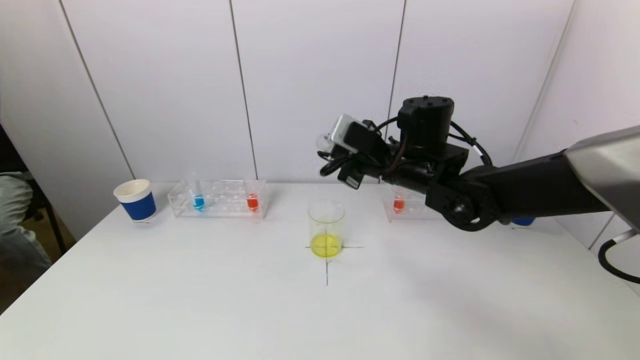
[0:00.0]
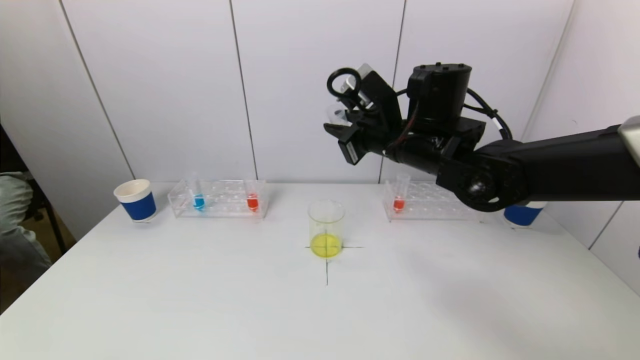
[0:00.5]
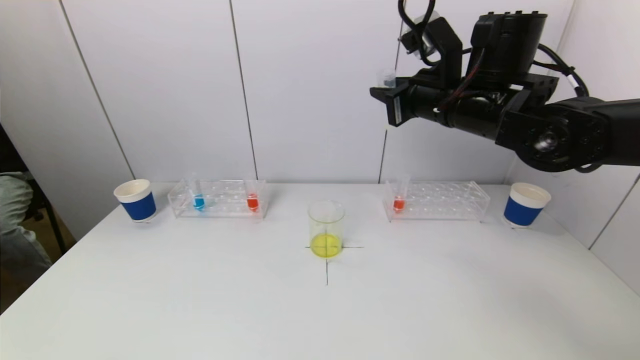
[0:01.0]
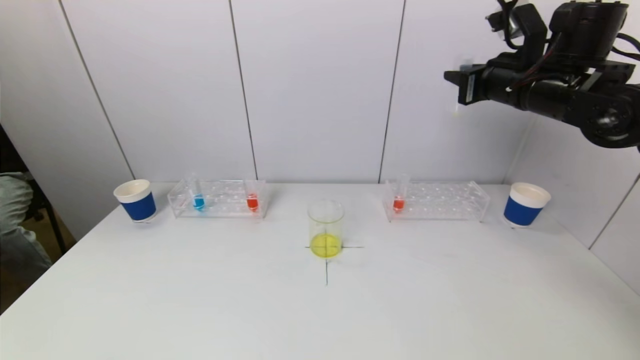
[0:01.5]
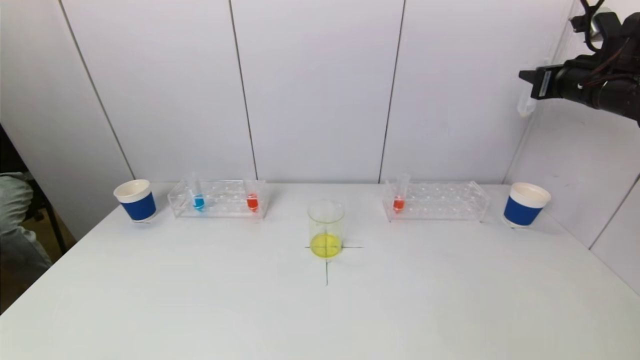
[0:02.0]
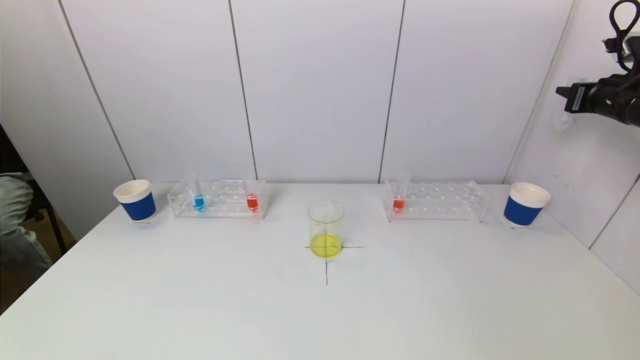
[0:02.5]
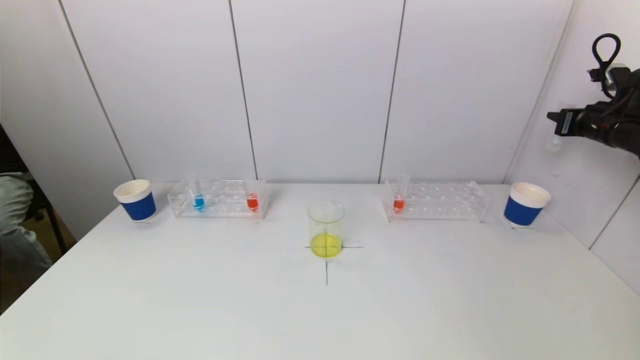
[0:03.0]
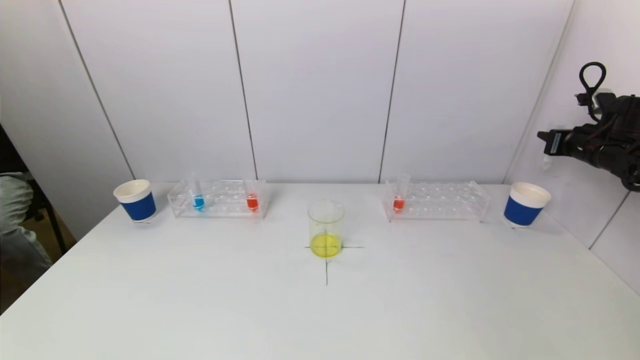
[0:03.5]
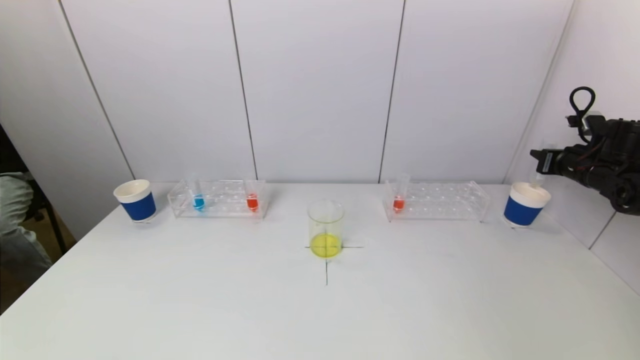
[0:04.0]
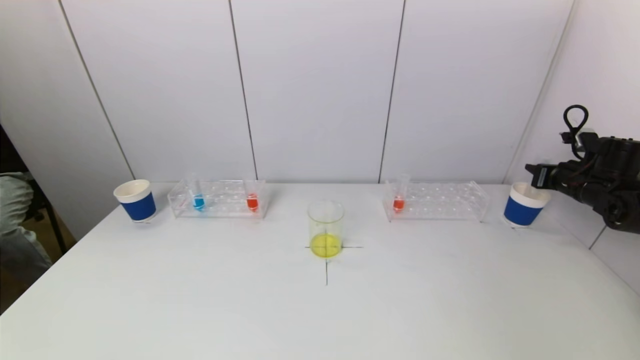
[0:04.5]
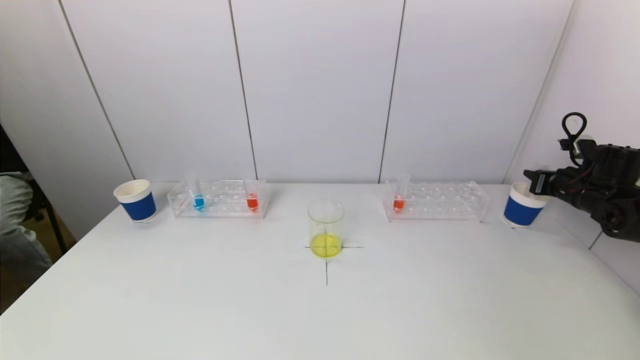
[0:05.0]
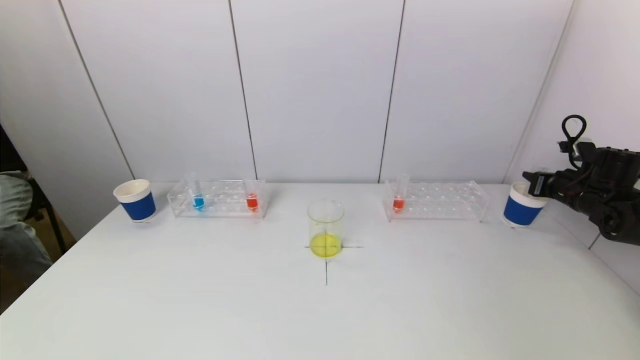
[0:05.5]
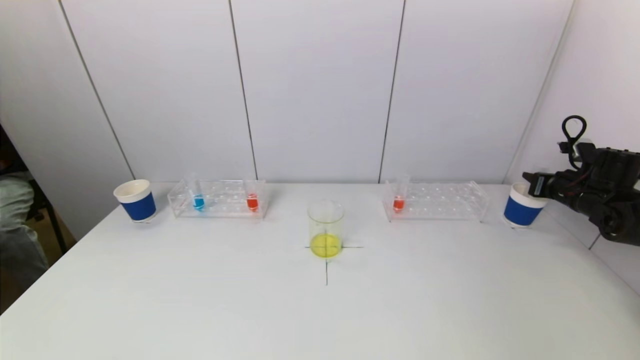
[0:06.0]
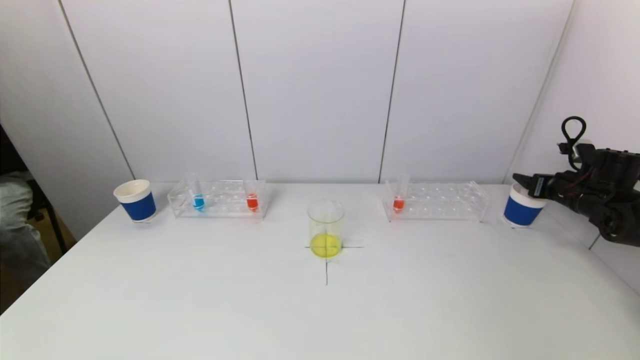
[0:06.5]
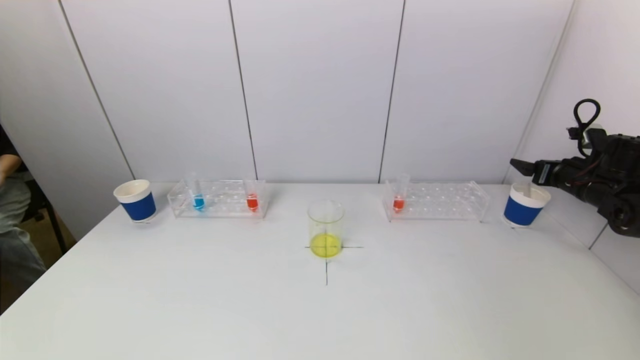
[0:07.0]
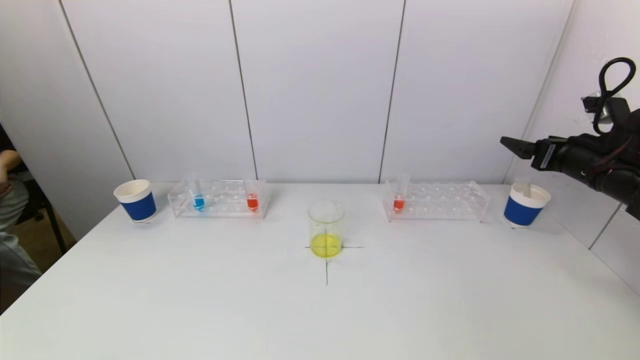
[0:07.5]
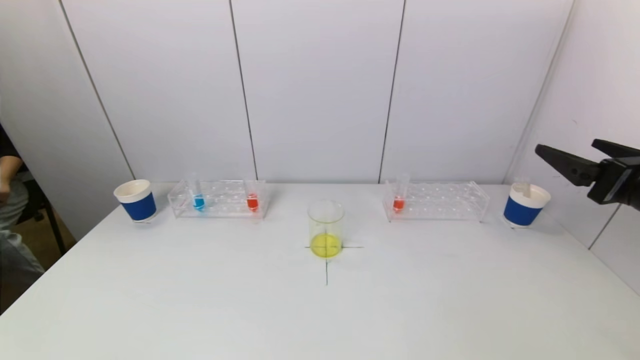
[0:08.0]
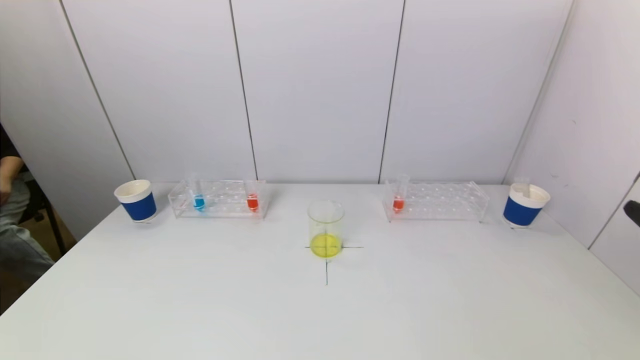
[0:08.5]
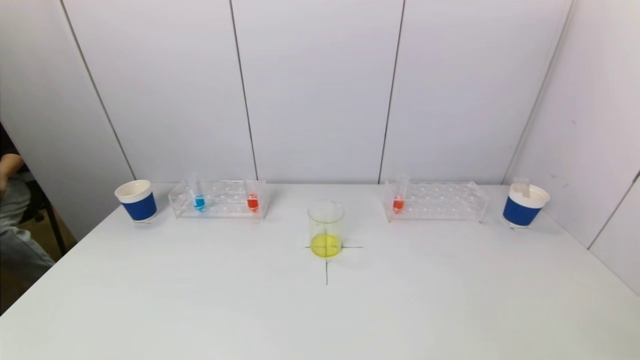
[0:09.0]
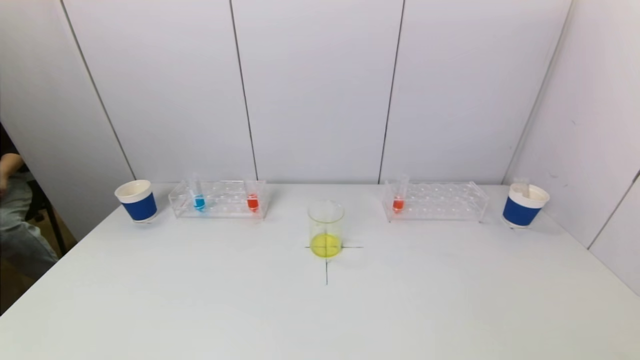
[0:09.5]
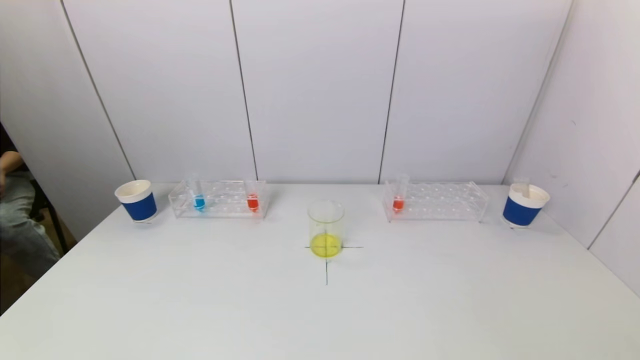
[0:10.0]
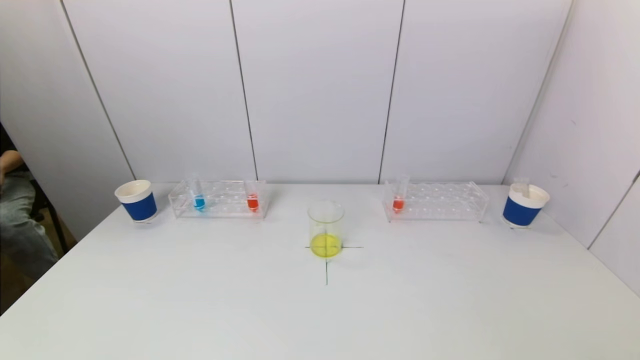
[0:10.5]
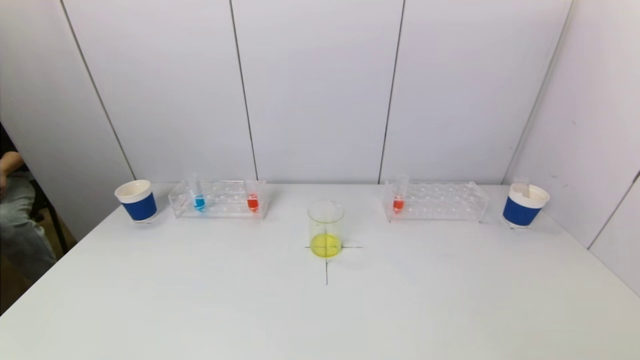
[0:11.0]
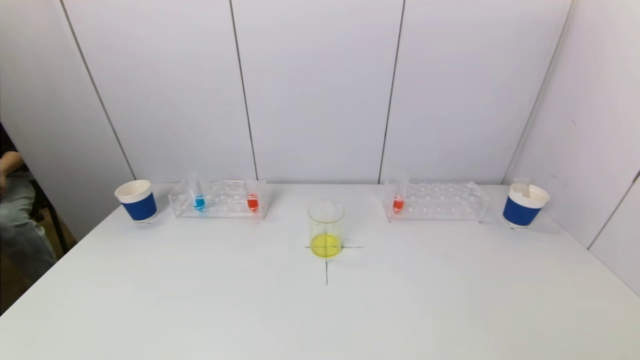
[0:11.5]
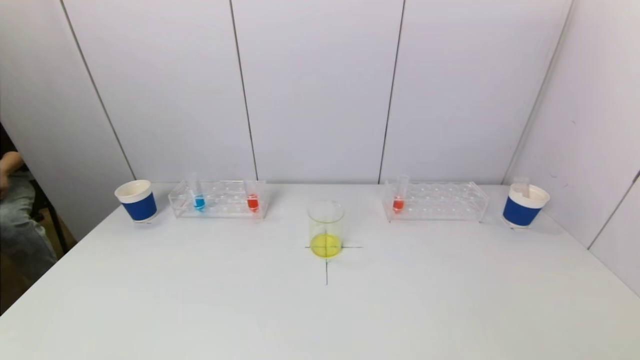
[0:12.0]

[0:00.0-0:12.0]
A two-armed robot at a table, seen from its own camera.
Task of the whole recording: pick up a test tube with pigment on left test tube rack and a test tube with pigment on right test tube rack by grippers and pour them into the beaker.
Step, 0:00.0 to 0:06.5: Place the test tube into the paper cup with the right gripper.
0:00.0 to 0:02.0: The right gripper heads to the right, covering about 30 cm.
0:02.0 to 0:04.0: The right gripper heads downward and to the right, covering roughly 15 cm.
0:04.0 to 0:06.0: The grippers stay close to where they were, moving slightly.
0:06.0 to 0:08.0: The right gripper heads backward, upward and to the left, covering roughly 30 cm, and opens up.
0:08.0 to 0:10.0: The right gripper heads backward and downward, covering about 25 cm.

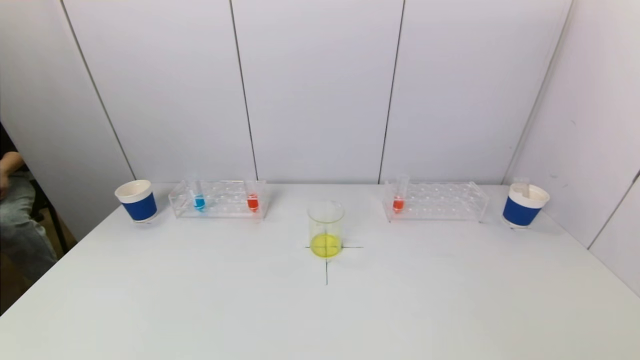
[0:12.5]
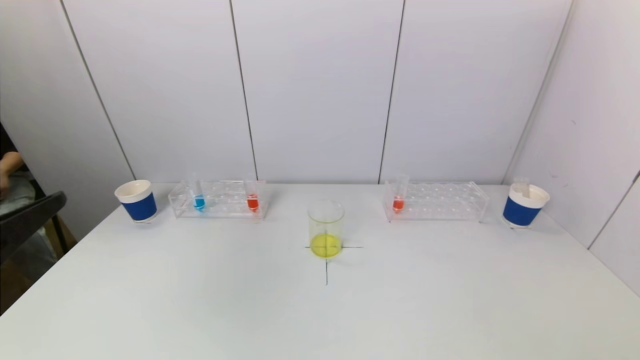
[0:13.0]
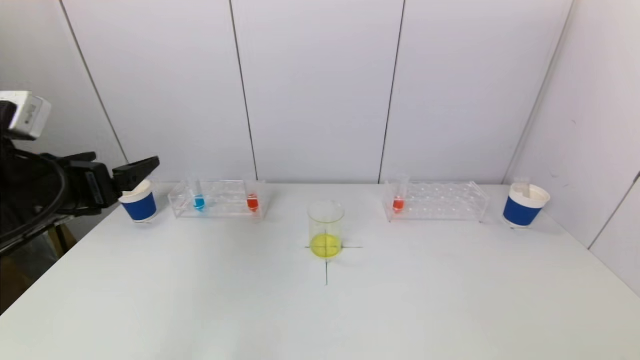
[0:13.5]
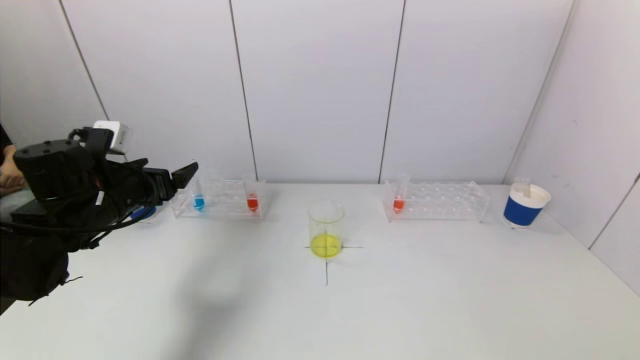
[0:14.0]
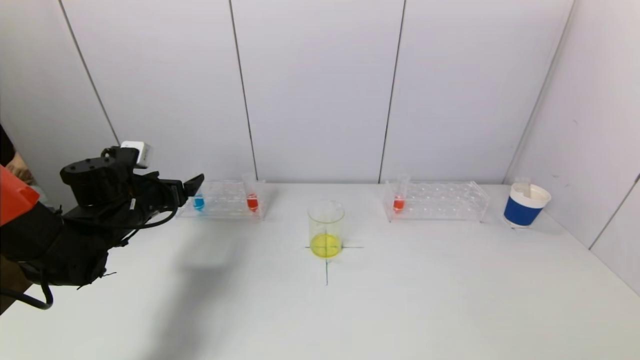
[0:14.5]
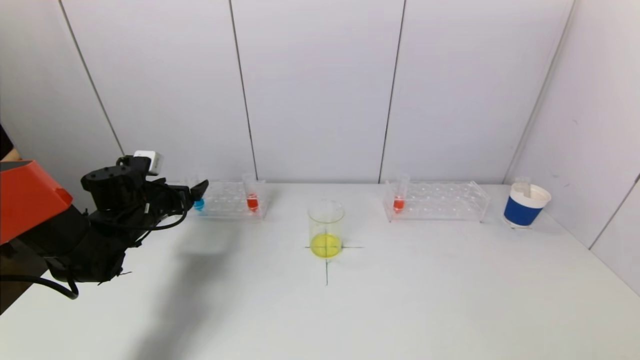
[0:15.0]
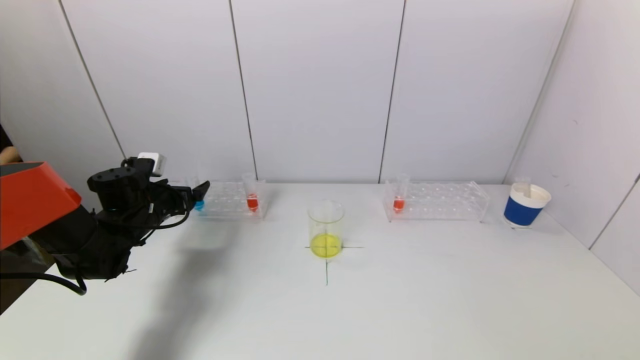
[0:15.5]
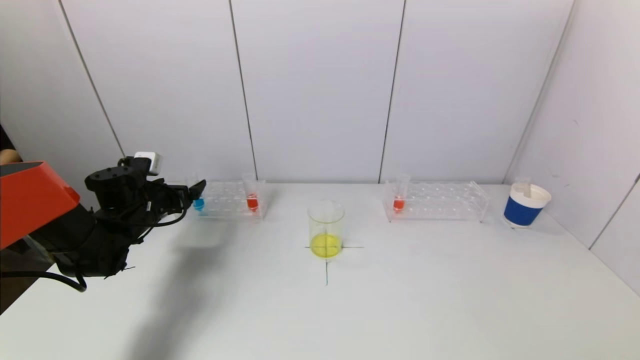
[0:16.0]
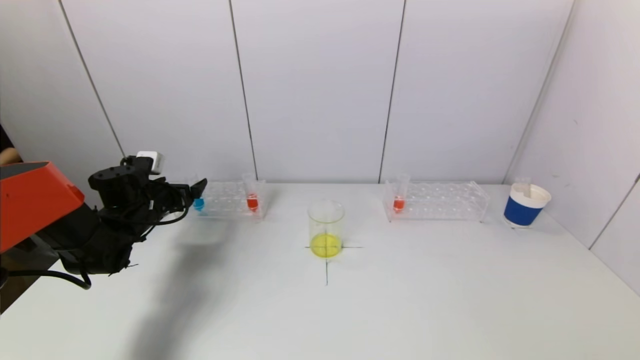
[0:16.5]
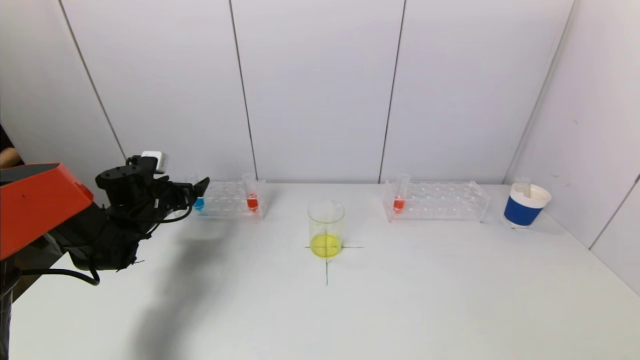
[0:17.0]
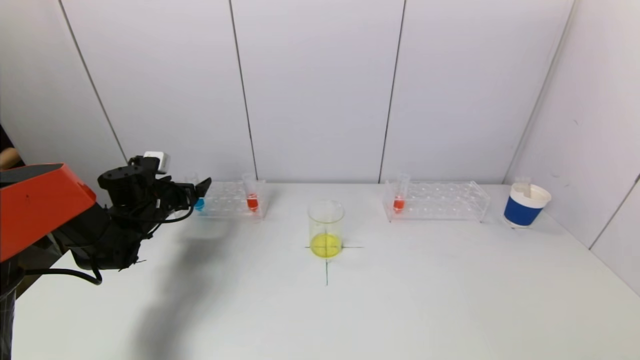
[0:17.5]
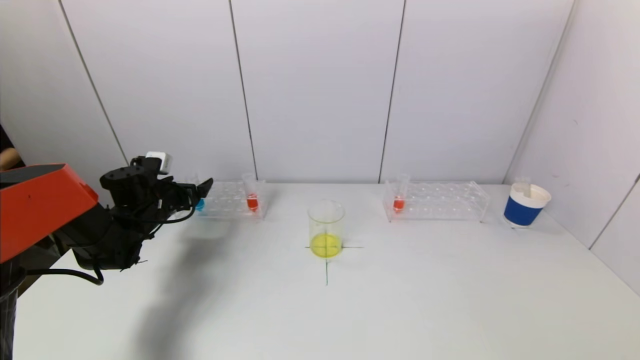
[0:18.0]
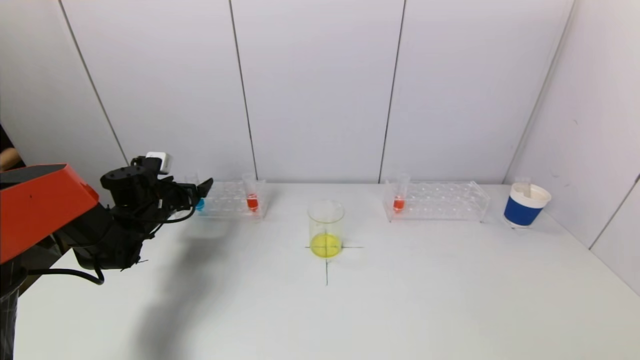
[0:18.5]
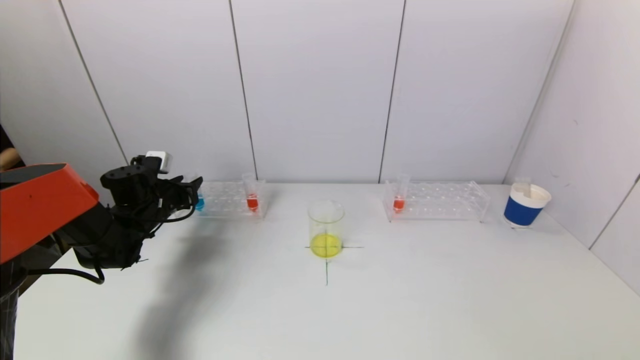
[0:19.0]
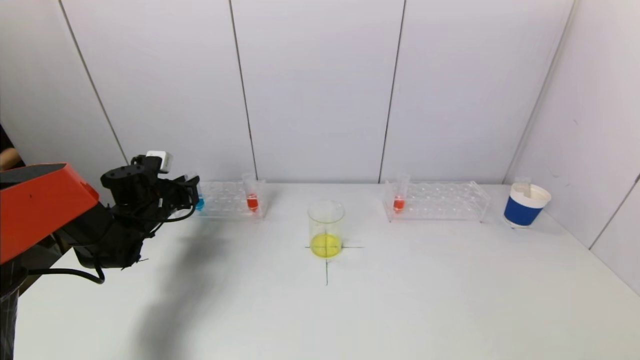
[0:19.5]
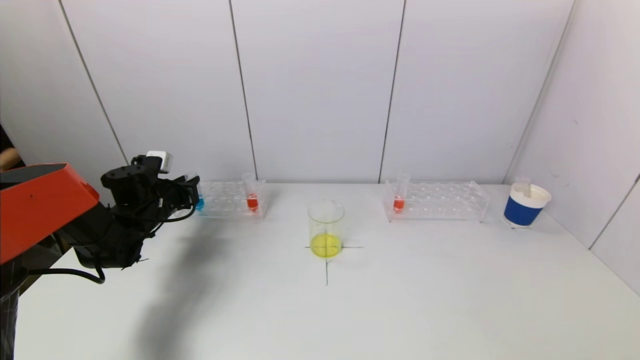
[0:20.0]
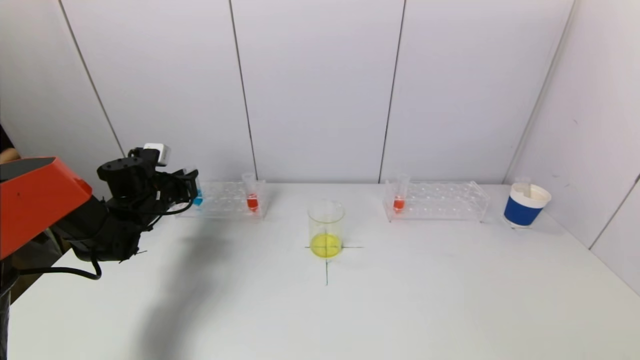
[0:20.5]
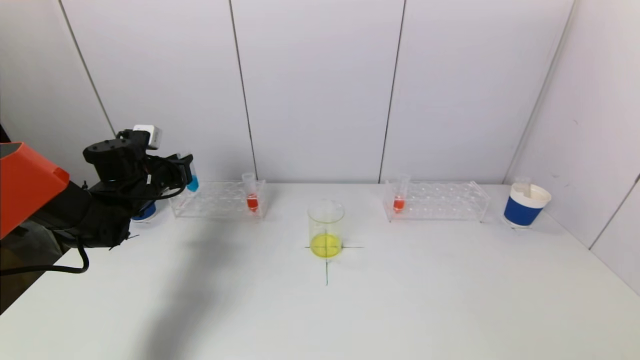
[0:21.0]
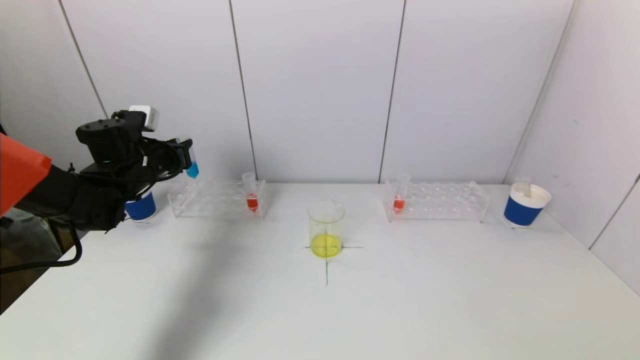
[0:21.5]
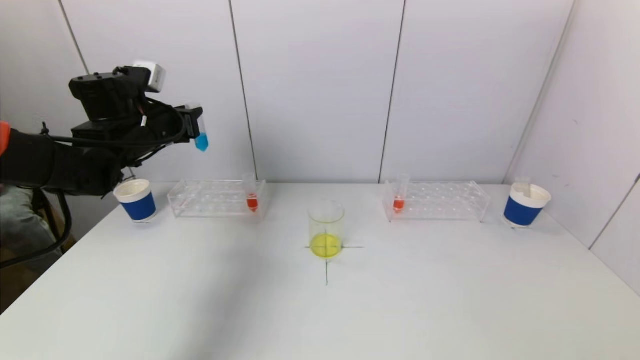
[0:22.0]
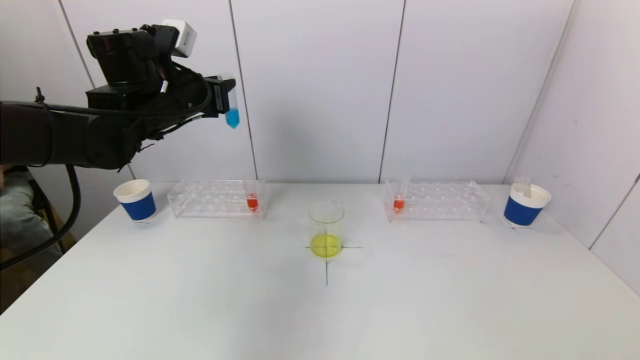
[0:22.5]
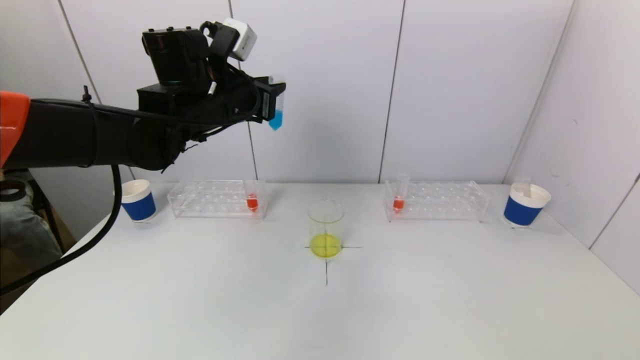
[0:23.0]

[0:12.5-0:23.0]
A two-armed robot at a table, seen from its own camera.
Task of the whole recording: pick up a test tube with pigment on left test tube rack and a test tube with pigment on right test tube rack by grippers and pour them into the beaker.
Step, 0:12.5 to 0:19.0: Grasp the blue reagent with the left gripper.
0:12.5 to 0:14.5: The left gripper is displaced forward by some 40 cm.
0:14.5 to 0:16.5: The left gripper ends up roughly 5 cm from where it was.
0:16.5 to 0:19.0: The left gripper closes up.
0:19.0 to 0:21.0: The left gripper heads upward, covering roughly 5 cm.
0:21.0 to 0:23.0: The left gripper moves to the right and upward, roughly 25 cm.
